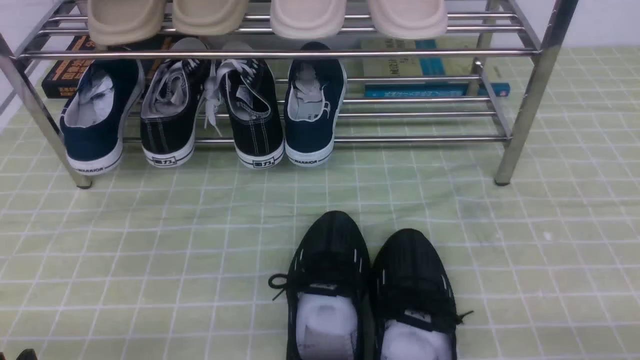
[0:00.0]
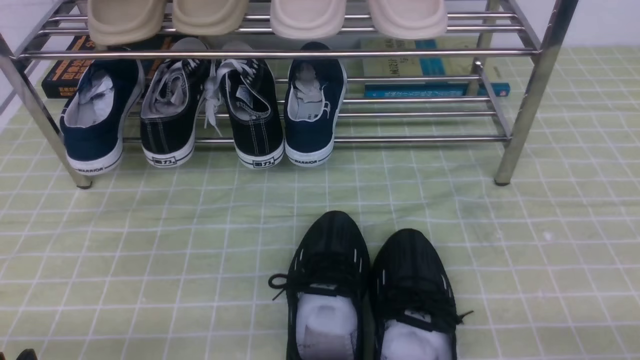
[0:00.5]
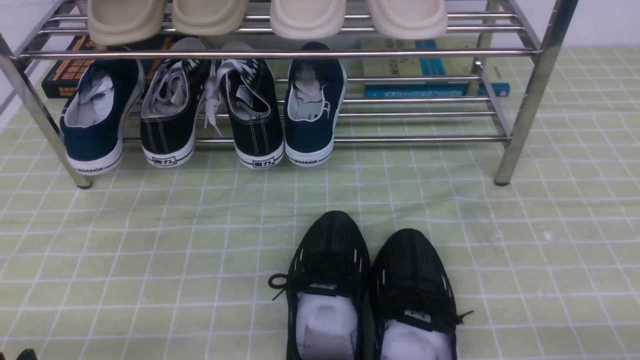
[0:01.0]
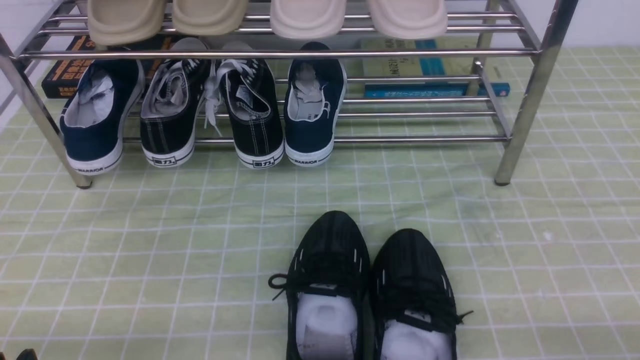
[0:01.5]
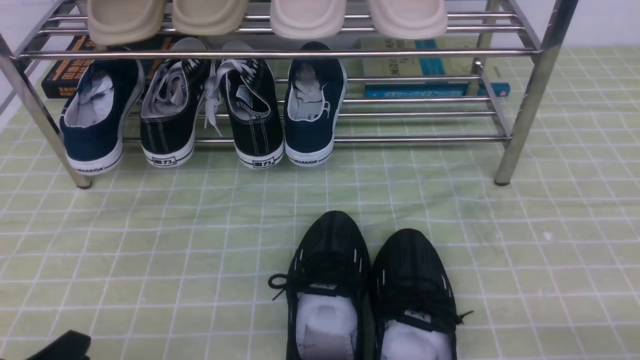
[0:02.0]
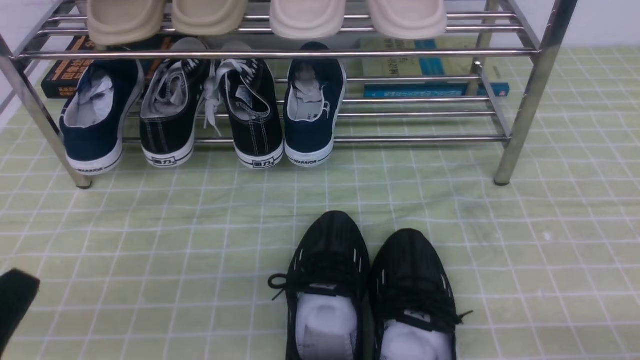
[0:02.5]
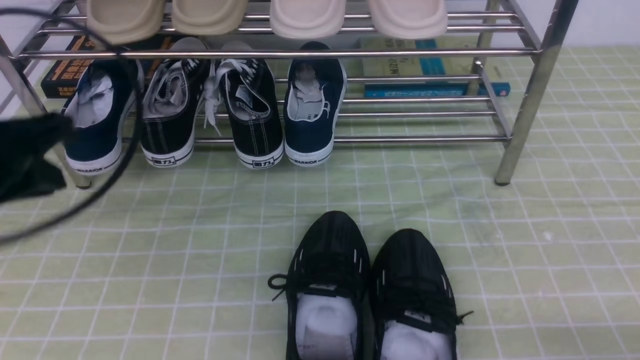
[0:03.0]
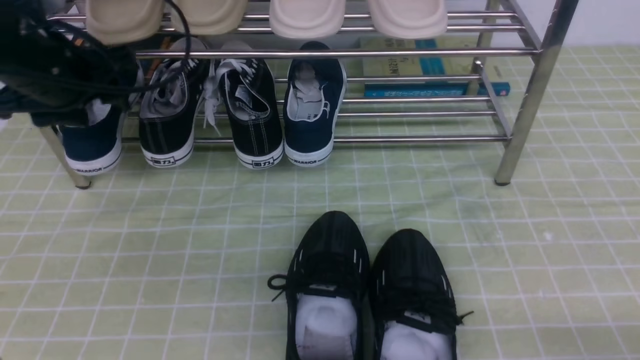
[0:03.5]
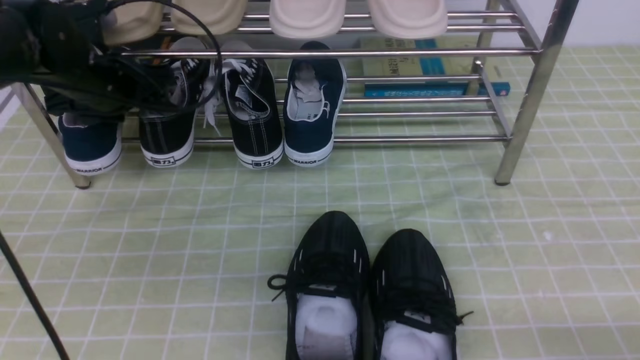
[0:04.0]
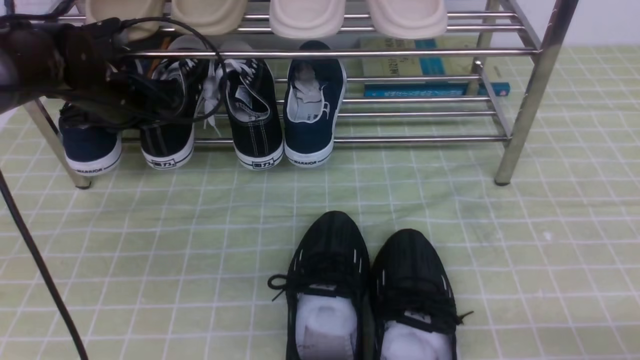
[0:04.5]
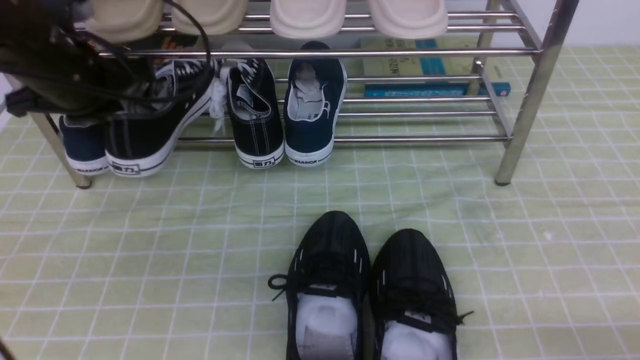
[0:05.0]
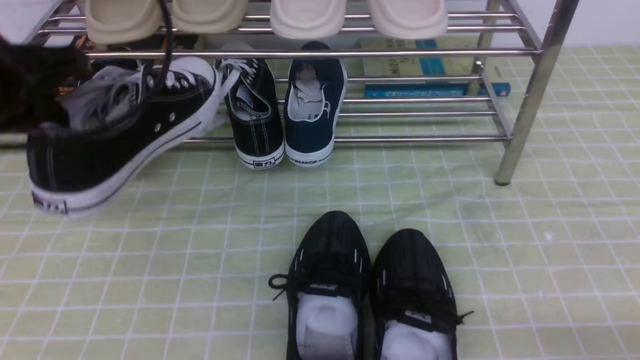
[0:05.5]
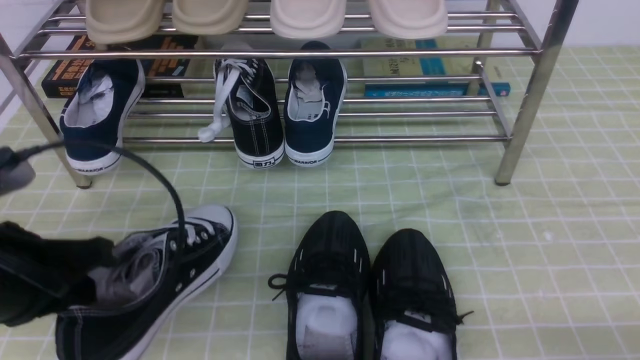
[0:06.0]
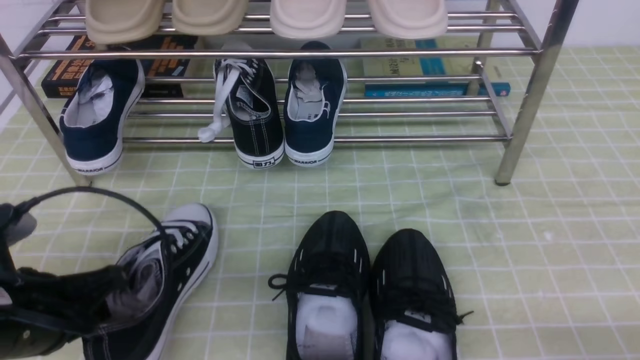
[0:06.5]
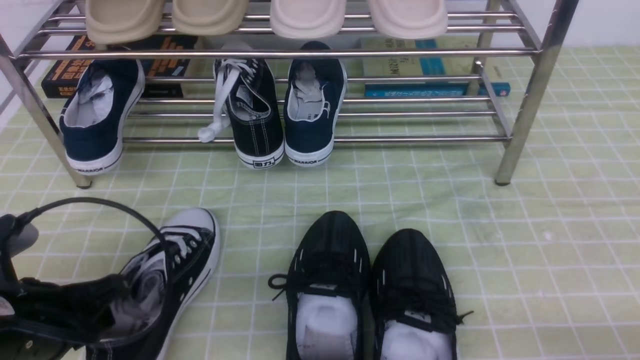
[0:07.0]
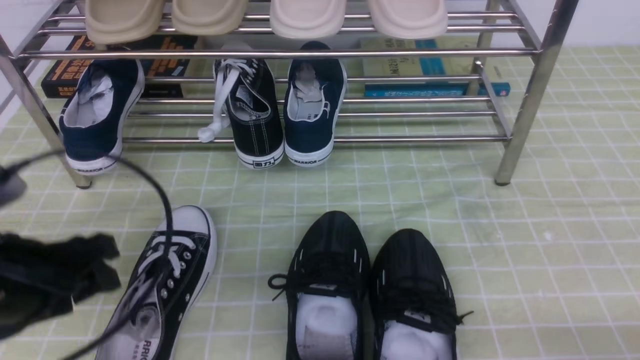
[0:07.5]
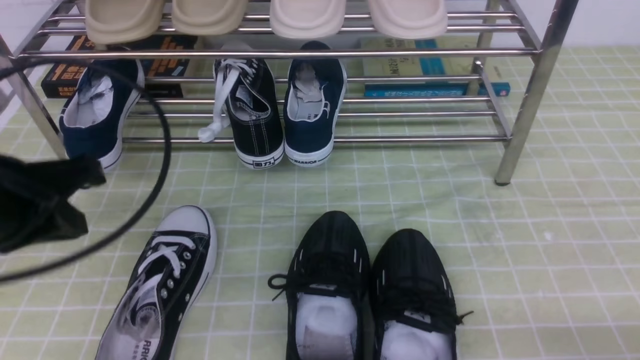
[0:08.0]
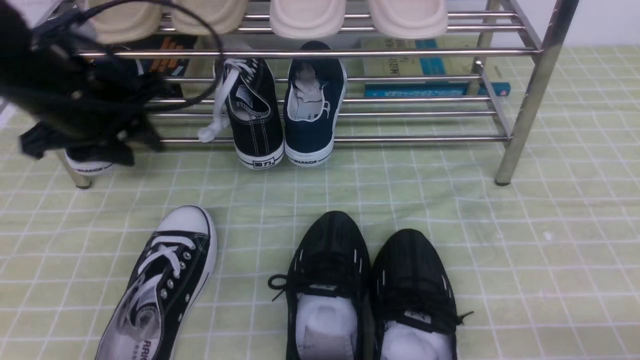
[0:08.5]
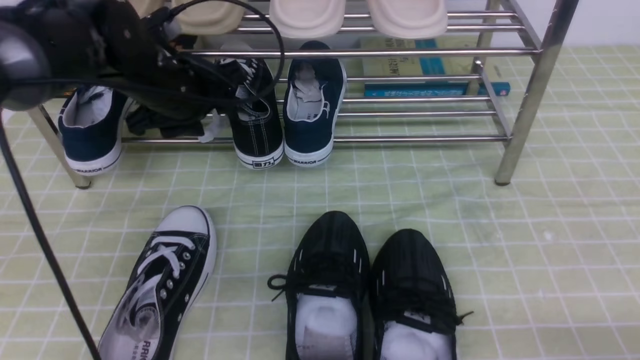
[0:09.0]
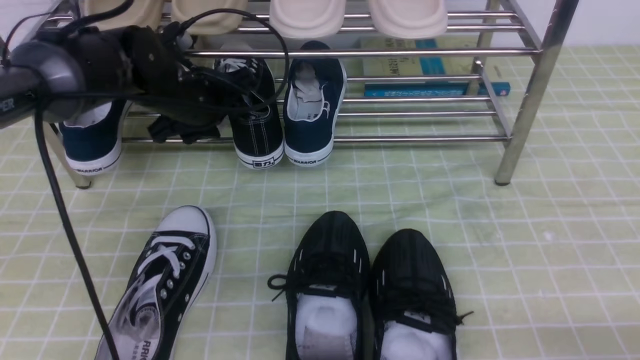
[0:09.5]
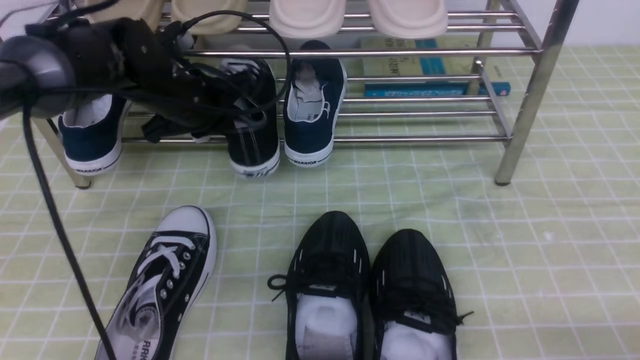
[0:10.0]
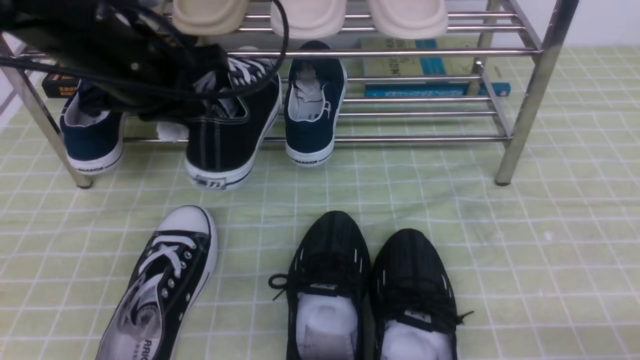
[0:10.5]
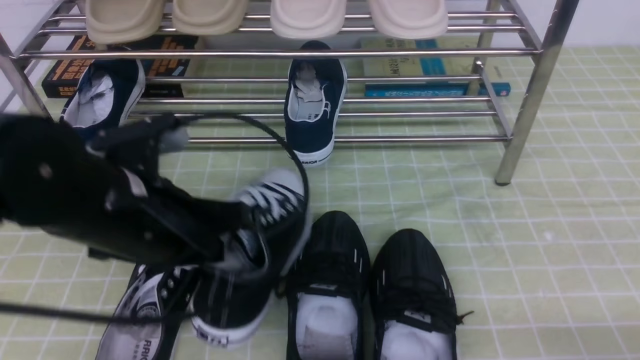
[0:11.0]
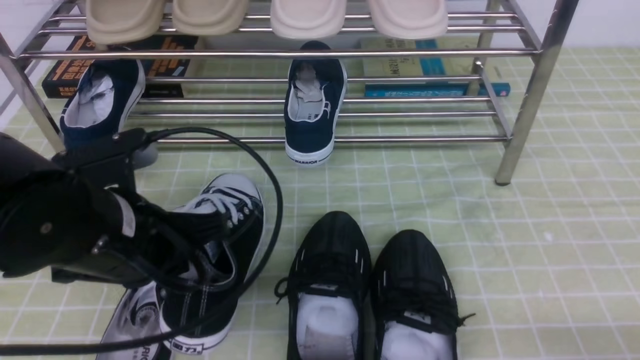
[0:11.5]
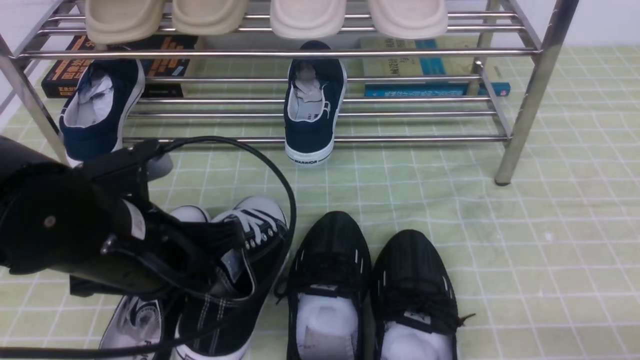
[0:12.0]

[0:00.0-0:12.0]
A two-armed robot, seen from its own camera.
Step, 0:00.0 to 0:04.5: use the left arm to clamp a shoe on the left side of the shoe rack.
Step, 0:05.0 to 0:07.0: Use your left arm to remove the clamped shoe from the shoe rack and put it down.
Step, 0:07.5 to 0:10.0: use the left arm to clamp a shoe on the left side of the shoe rack.
0:02.0 to 0:04.0: The left gripper travels forward by roughly 35 cm, and opens up.
0:04.0 to 0:06.0: The left gripper heads backward, covering approximately 25 cm, and closes its fingers.
0:06.0 to 0:08.0: The left gripper ends up some 5 cm from where it was, and opens, then closes once more.
0:08.0 to 0:10.0: The left gripper goes roughly 20 cm forward and to the right, and opens and closes again.
0:10.0 to 0:12.0: The left gripper travels backward by about 20 cm.

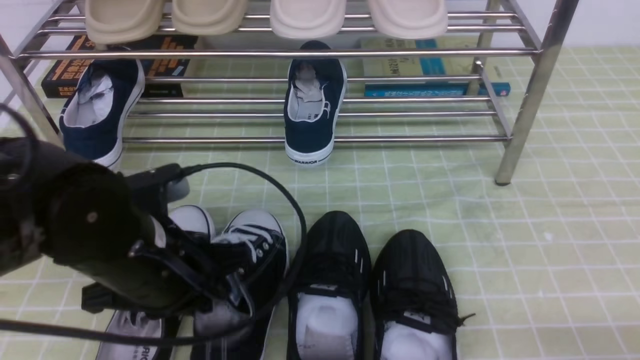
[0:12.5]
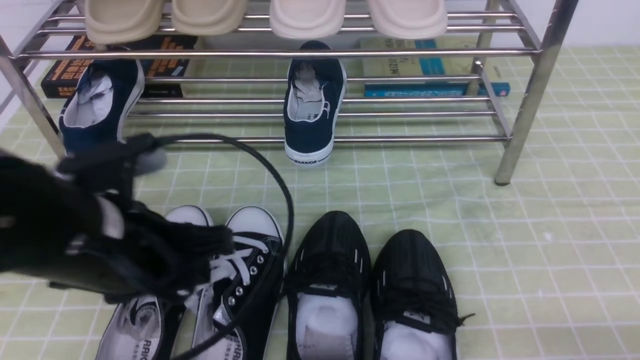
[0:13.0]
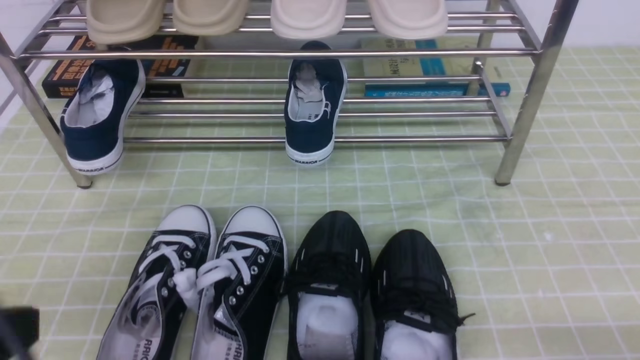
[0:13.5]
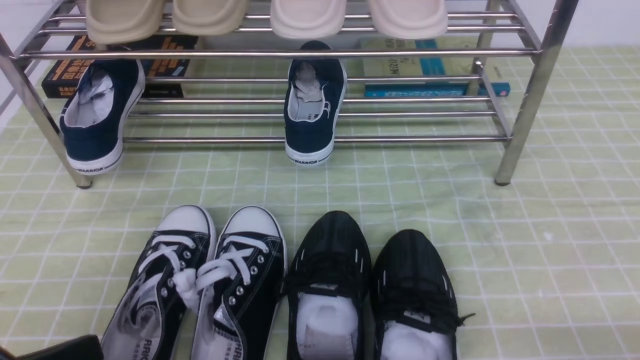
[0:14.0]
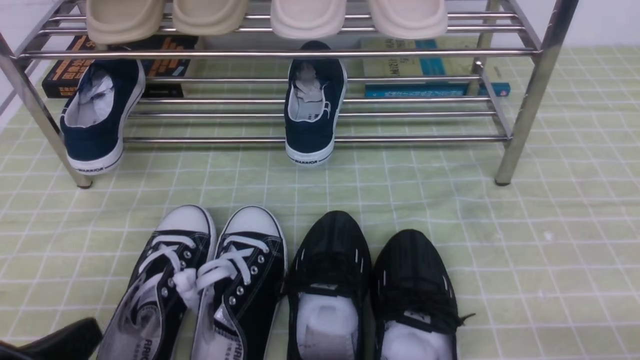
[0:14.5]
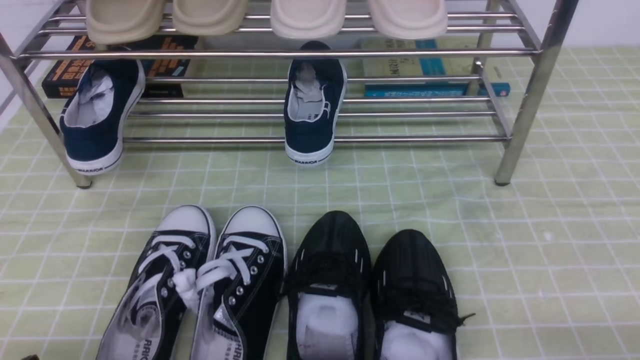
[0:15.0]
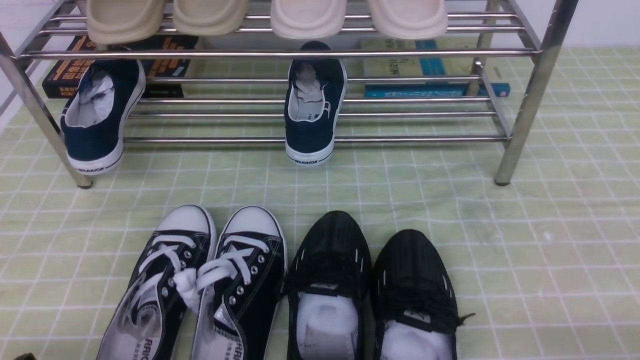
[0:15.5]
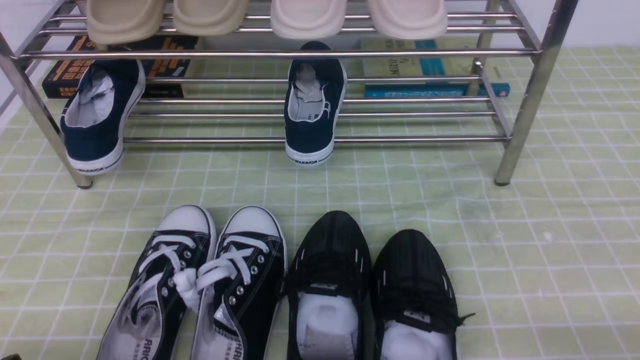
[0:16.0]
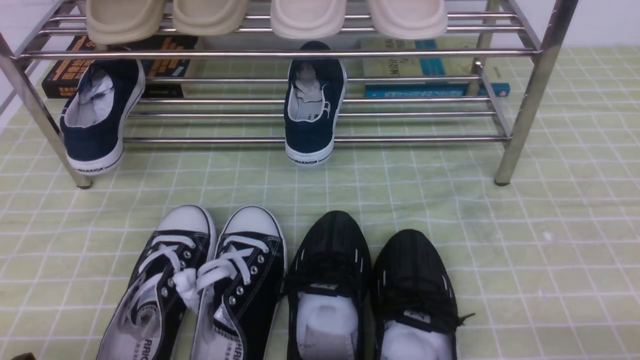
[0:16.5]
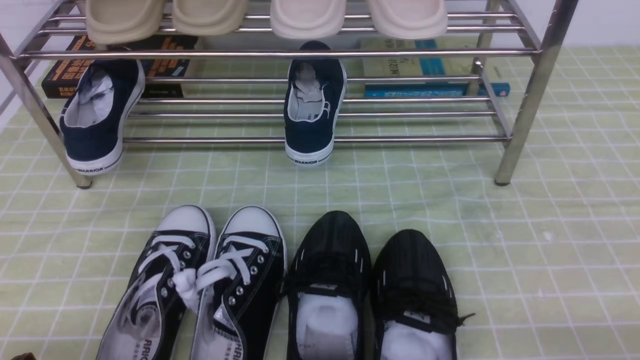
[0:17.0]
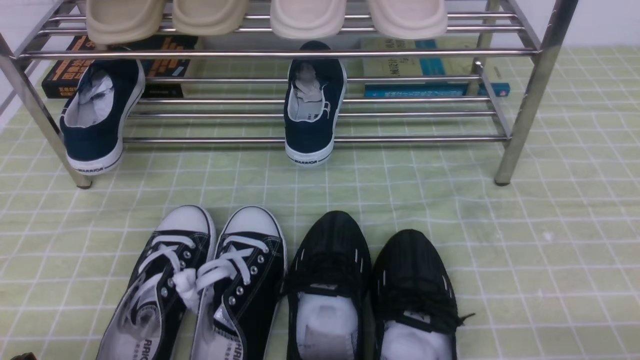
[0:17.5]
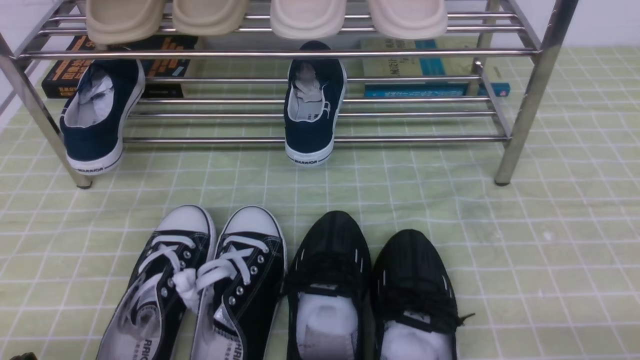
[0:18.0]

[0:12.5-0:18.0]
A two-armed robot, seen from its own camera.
0:12.5 to 0:14.5: The left gripper heads backward and to the left, covering approximately 20 cm, and opens, then closes once more.
0:14.5 to 0:16.0: The left gripper travels downward by about 5 cm.
0:16.0 to 0:18.0: Both grippers stay put.
